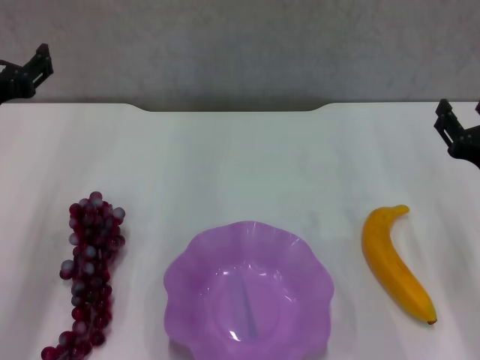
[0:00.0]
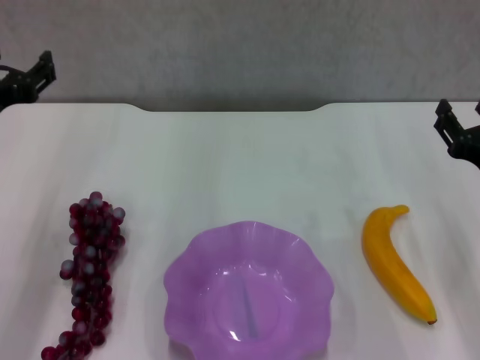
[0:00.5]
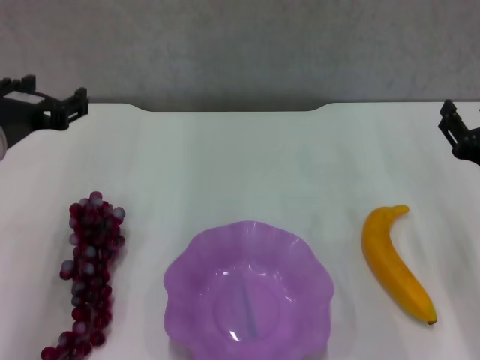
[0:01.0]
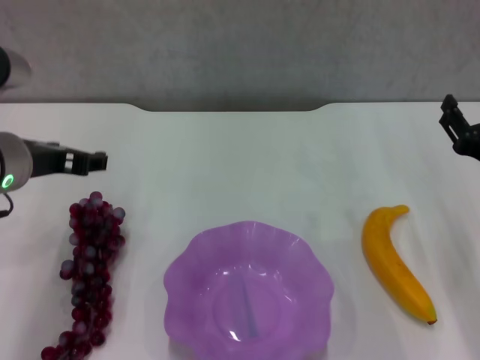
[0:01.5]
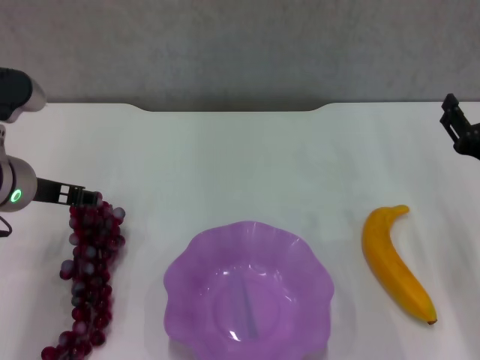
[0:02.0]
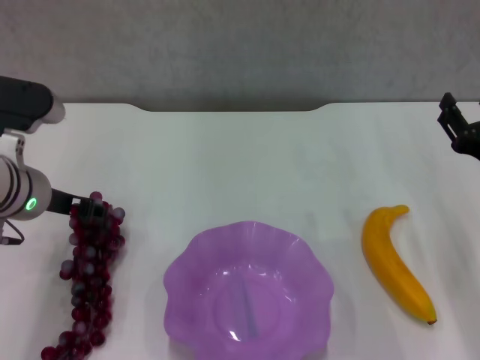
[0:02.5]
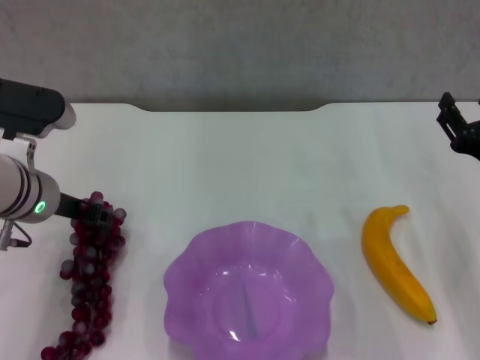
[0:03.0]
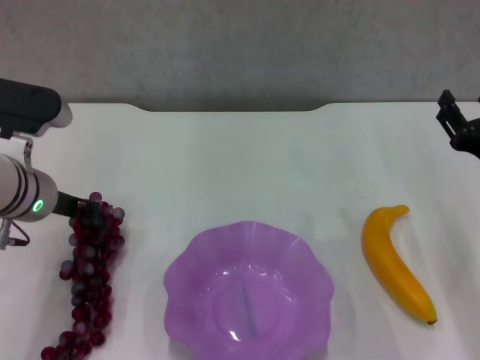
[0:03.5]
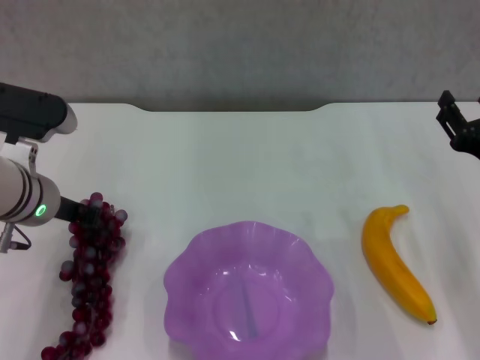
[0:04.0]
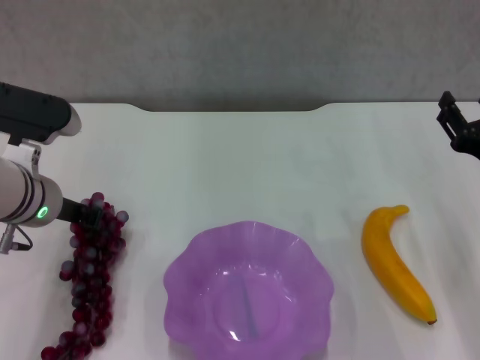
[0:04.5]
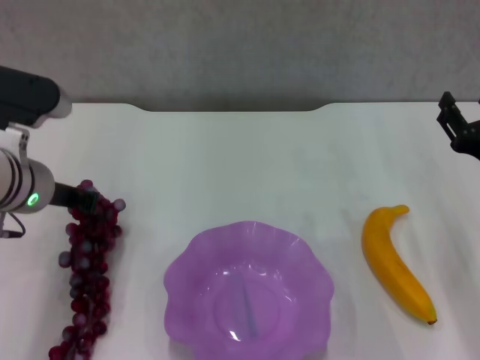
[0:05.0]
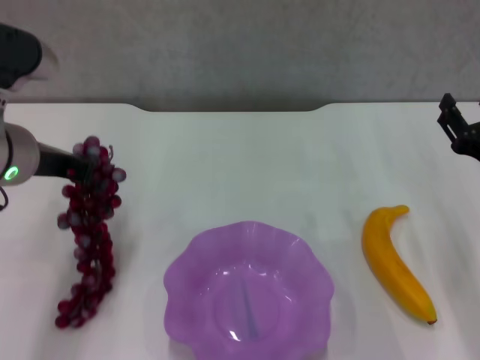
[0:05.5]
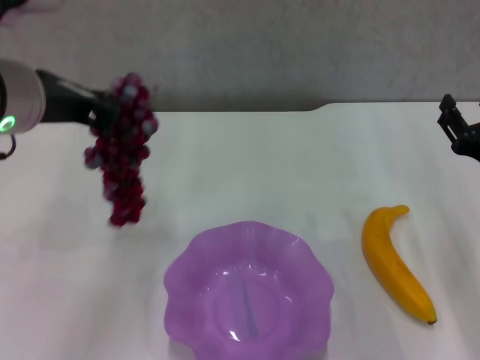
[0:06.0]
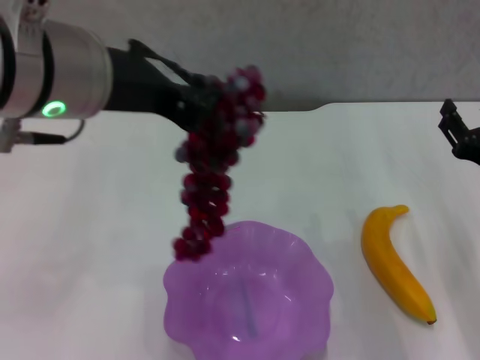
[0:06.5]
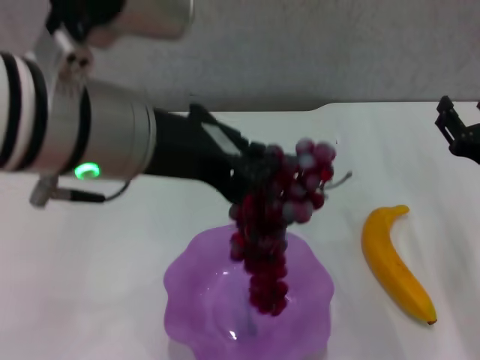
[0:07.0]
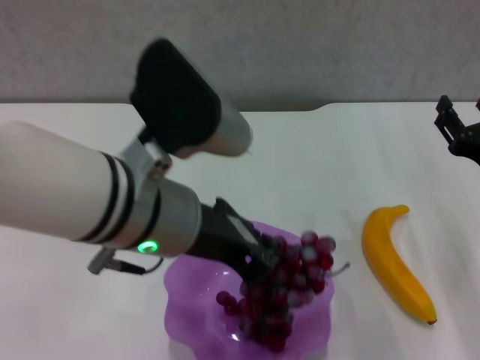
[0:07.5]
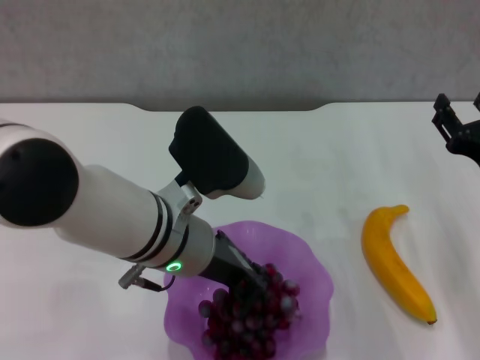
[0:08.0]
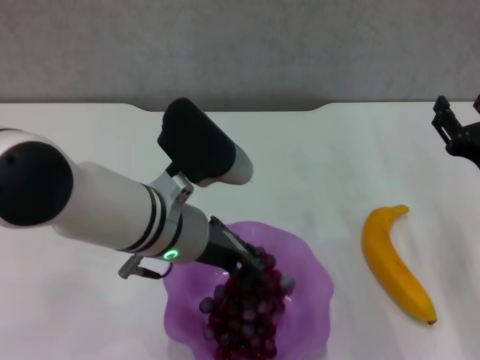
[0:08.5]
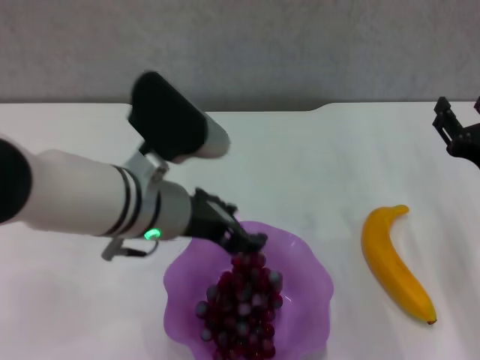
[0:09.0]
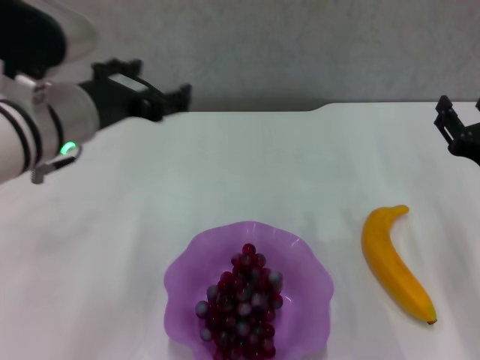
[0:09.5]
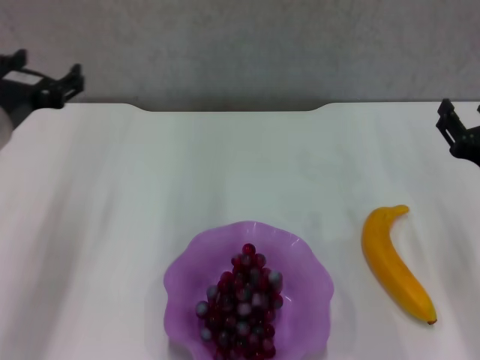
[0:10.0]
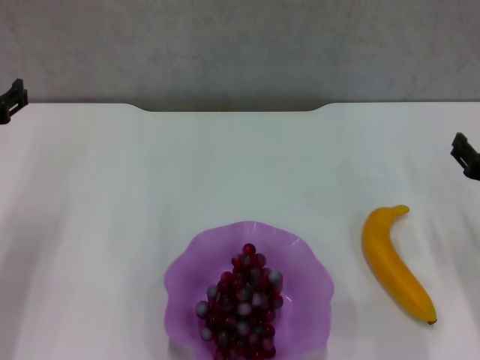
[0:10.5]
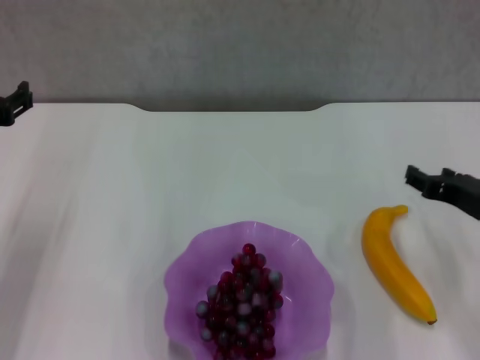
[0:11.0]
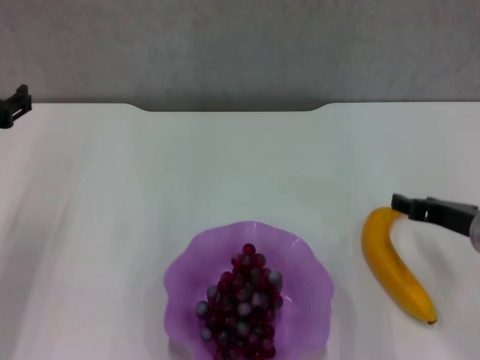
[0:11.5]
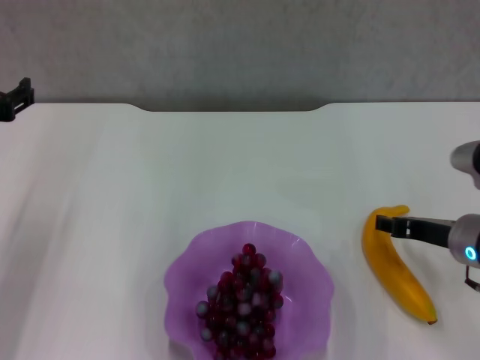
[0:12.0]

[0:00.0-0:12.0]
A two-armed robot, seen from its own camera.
Step, 0:00.0 to 0:04.5: Grasp the grape with left gripper.
Step, 0:05.0 to 0:08.5: Place the grape in the purple plate with left gripper.
0:00.0 to 0:02.0: The left gripper moves about 5 cm.
0:02.0 to 0:04.0: The left gripper closes its fingers.
0:04.0 to 0:06.0: The left gripper shifts roughly 15 cm upward.
0:06.0 to 0:08.0: The left gripper travels downward and to the right by roughly 15 cm.
0:08.0 to 0:10.0: The left gripper travels to the left by roughly 15 cm, and opens.

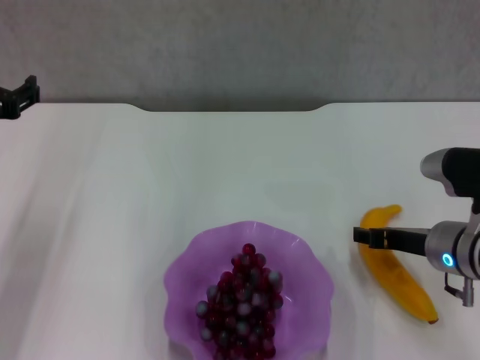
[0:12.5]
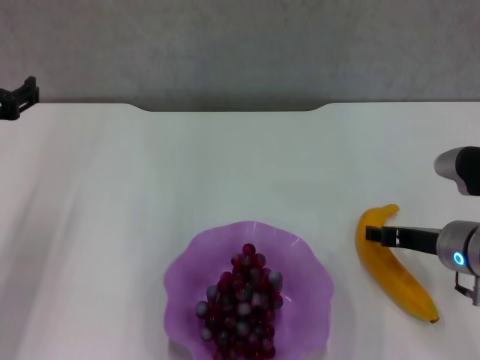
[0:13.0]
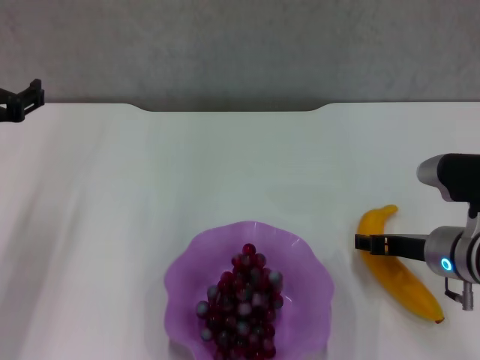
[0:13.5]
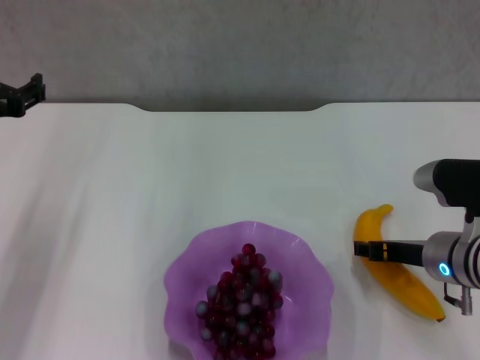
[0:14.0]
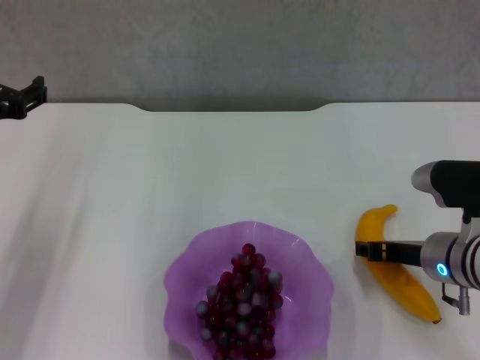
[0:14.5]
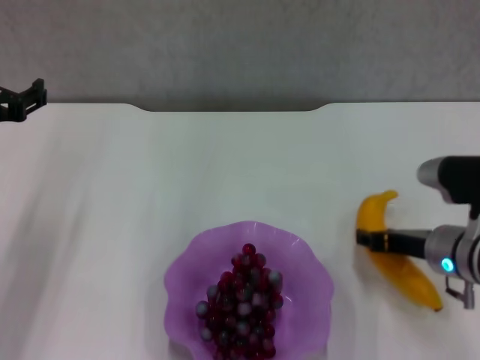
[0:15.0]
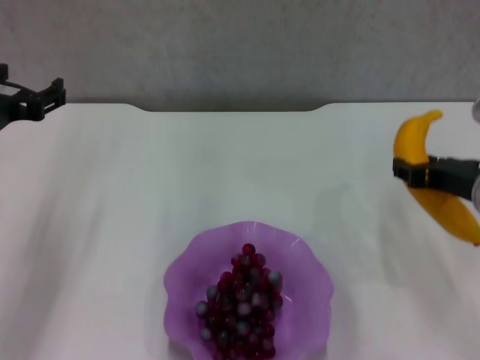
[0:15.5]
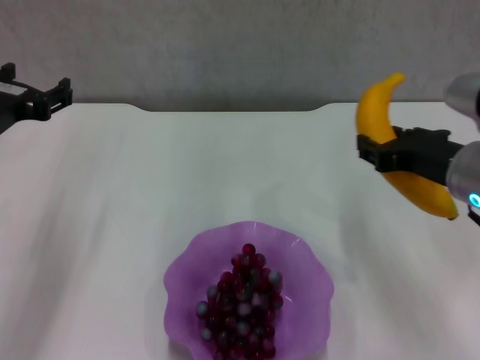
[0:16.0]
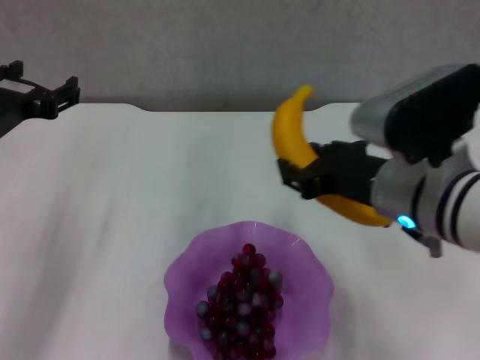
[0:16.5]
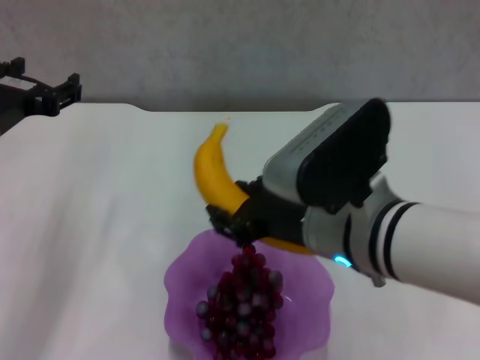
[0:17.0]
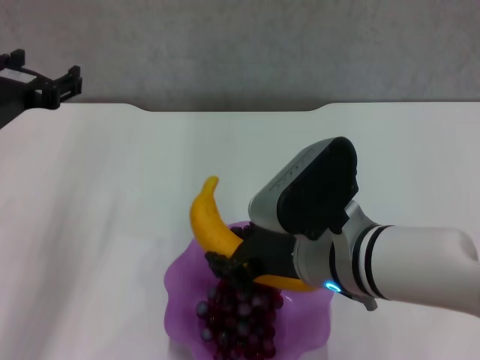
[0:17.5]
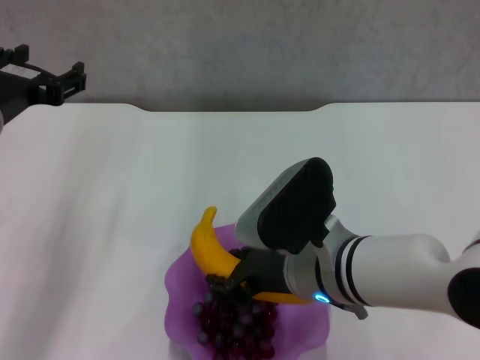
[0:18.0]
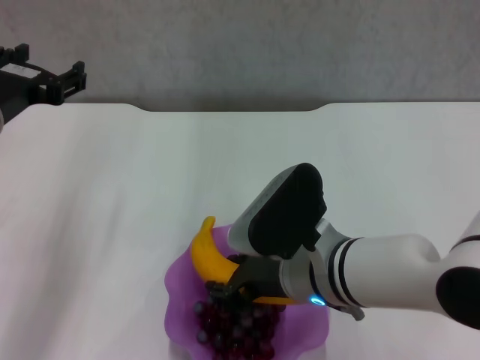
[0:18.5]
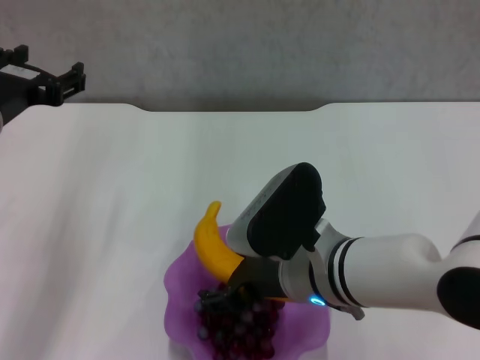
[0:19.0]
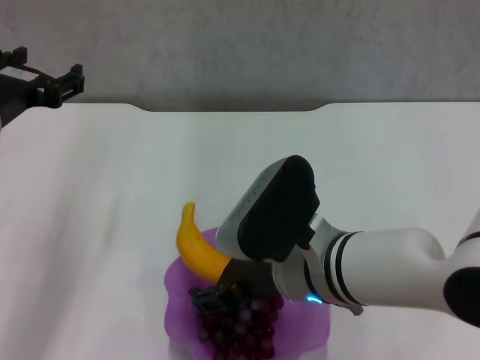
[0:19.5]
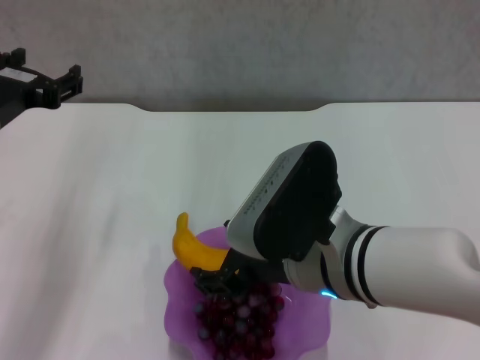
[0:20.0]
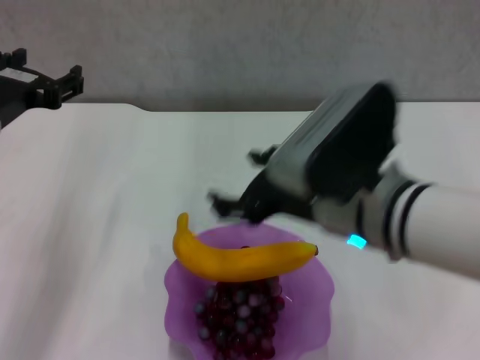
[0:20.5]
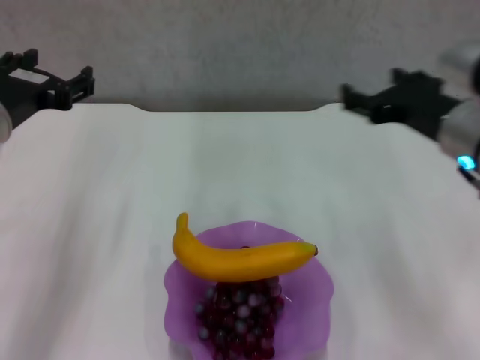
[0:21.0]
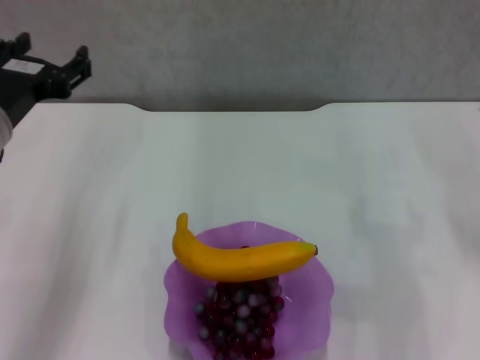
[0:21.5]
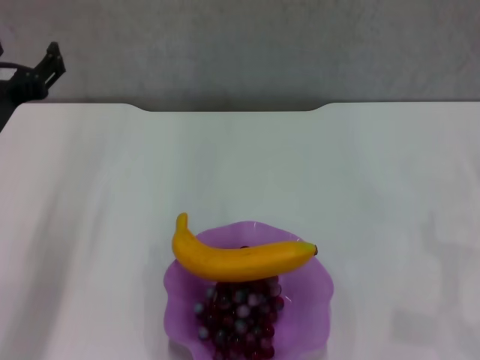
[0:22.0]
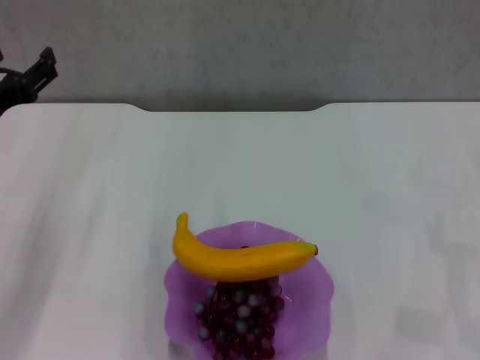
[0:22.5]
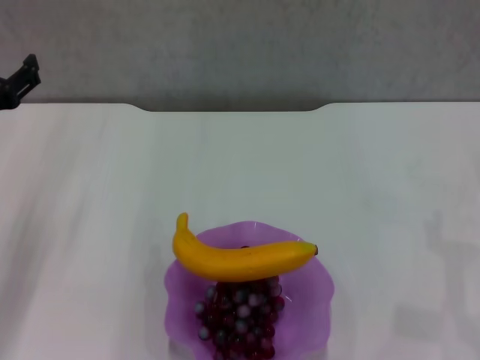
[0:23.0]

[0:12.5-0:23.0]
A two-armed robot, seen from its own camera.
Step, 0:12.5 to 0:14.5: Grasp the banana with right gripper.
Step, 0:15.0 to 0:20.0: Place the banana in the purple plate with right gripper.
0:12.5 to 0:14.5: The grippers make only small movements.
0:14.5 to 0:16.5: The right gripper heads upward and to the left, covering roughly 15 cm.
0:16.5 to 0:19.0: The right gripper goes some 10 cm downward and to the left, and opens its fingers.
0:19.0 to 0:21.0: The right gripper is displaced to the right, upward and forward by some 15 cm, and opens.
0:21.0 to 0:23.0: The left gripper is displaced to the left by some 5 cm. The right gripper moves to the right and downward, some 20 cm.

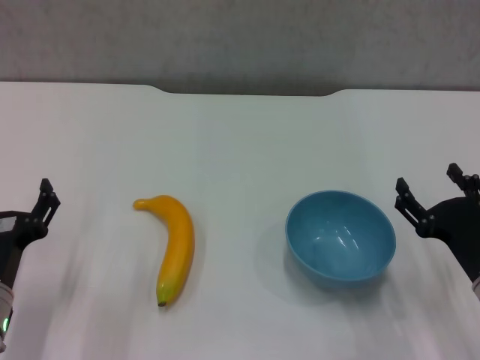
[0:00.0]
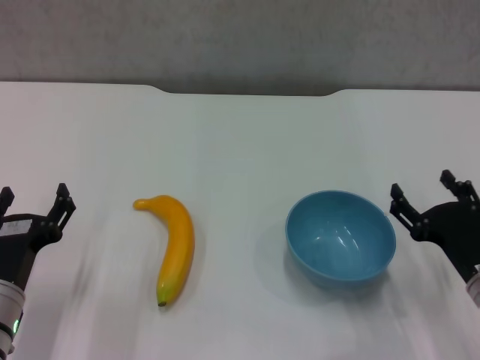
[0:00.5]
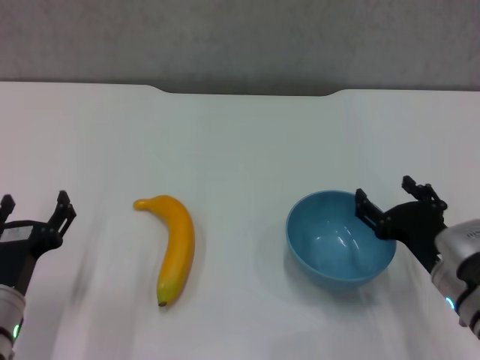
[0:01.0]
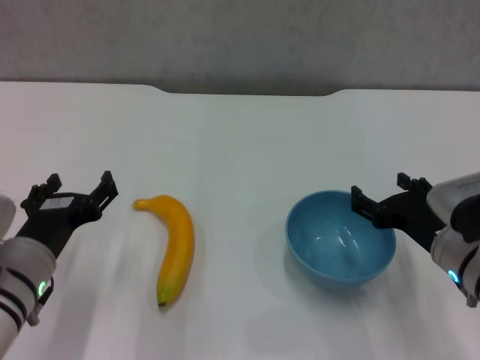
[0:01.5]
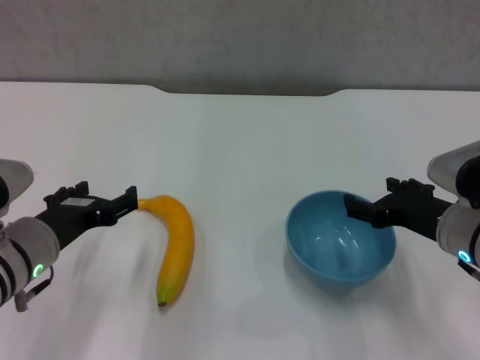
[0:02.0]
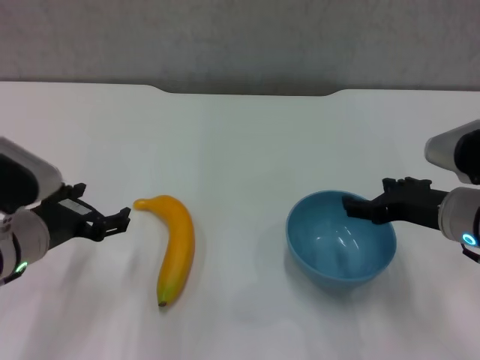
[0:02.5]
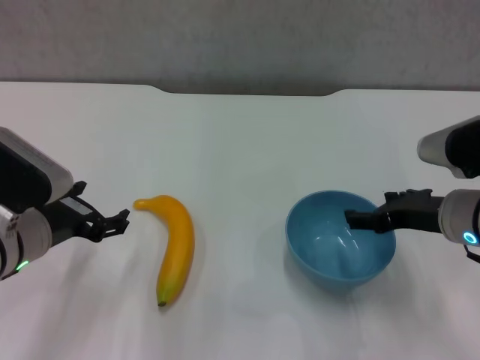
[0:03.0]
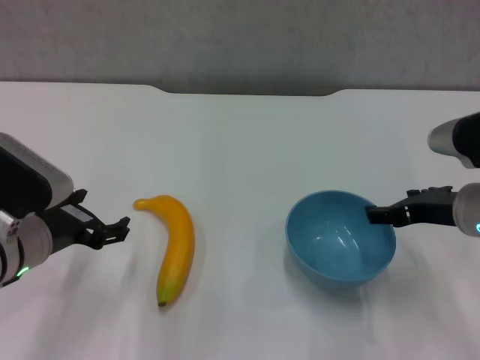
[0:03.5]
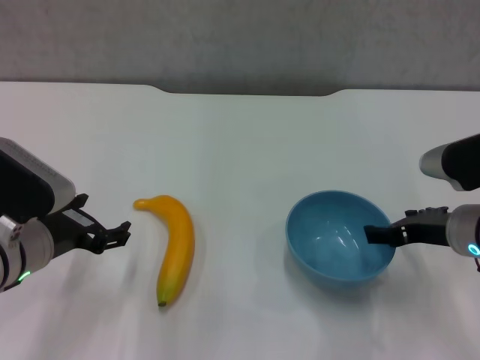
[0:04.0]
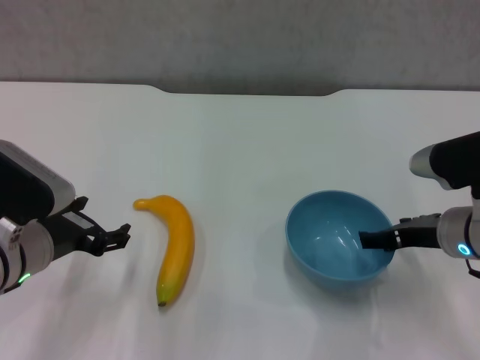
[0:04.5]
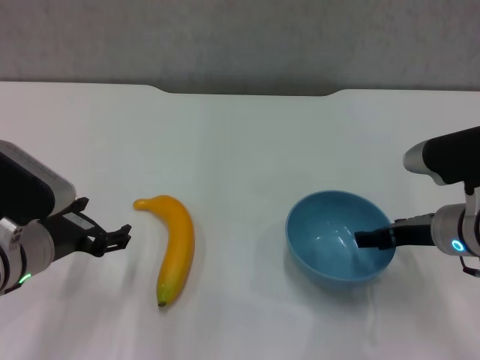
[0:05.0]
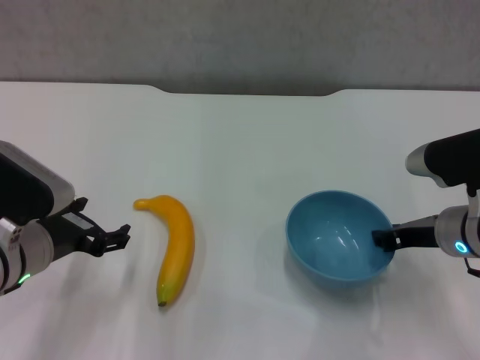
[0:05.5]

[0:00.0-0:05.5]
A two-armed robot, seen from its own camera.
0:00.0 to 0:02.0: The right gripper shifts roughly 10 cm upward and forward; the left gripper shifts about 5 cm upward.
0:03.5 to 0:05.5: The right gripper closes its fingers.
